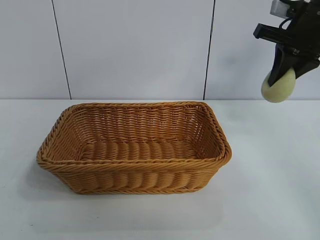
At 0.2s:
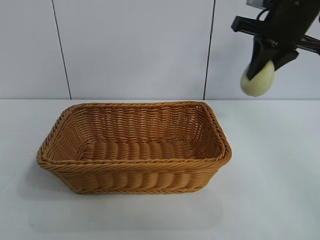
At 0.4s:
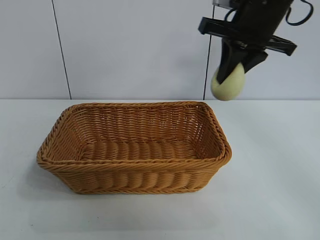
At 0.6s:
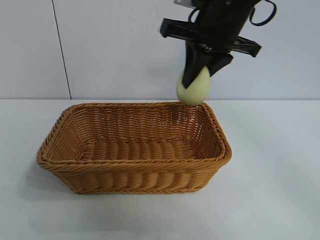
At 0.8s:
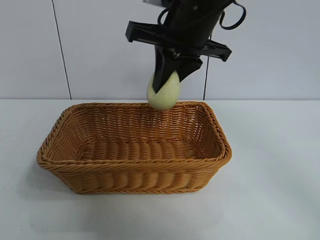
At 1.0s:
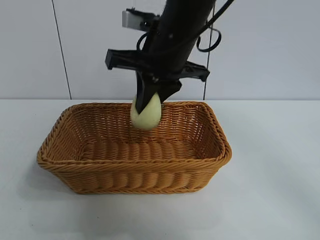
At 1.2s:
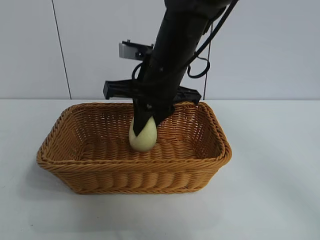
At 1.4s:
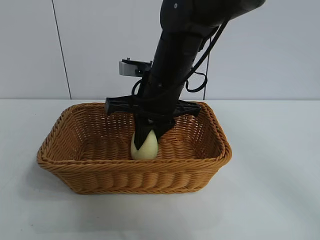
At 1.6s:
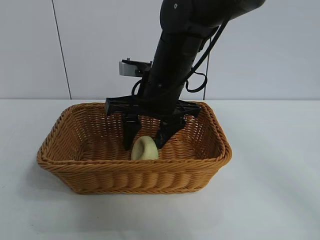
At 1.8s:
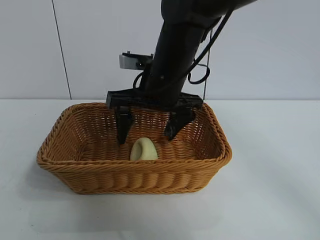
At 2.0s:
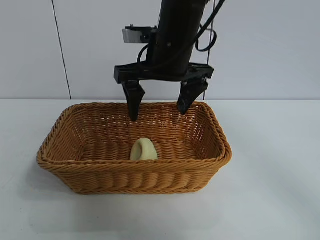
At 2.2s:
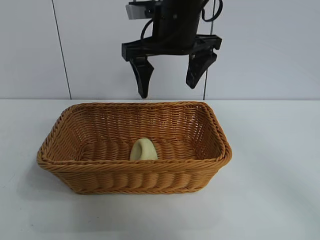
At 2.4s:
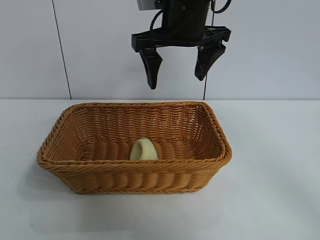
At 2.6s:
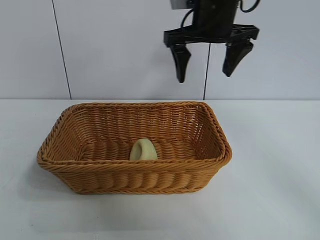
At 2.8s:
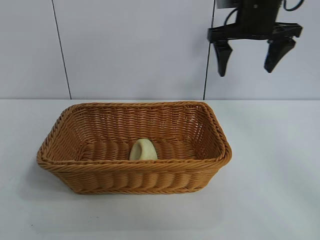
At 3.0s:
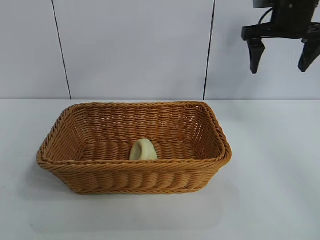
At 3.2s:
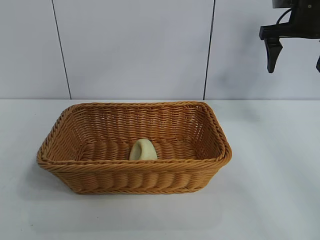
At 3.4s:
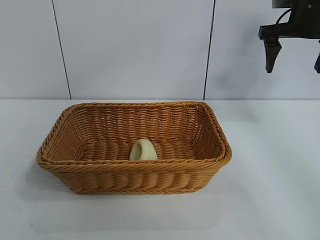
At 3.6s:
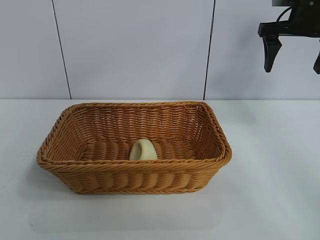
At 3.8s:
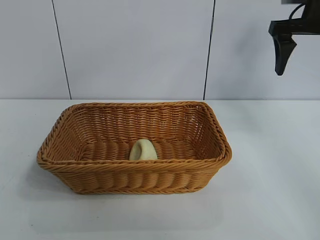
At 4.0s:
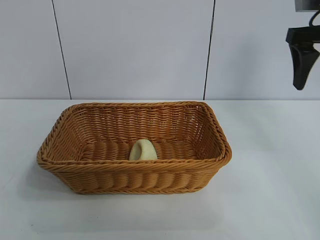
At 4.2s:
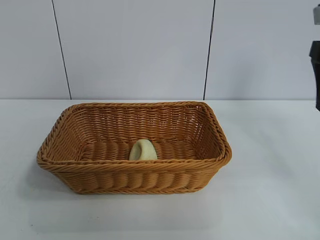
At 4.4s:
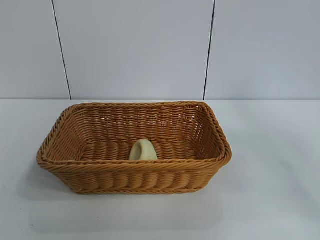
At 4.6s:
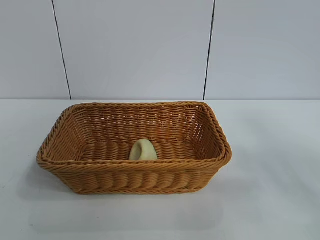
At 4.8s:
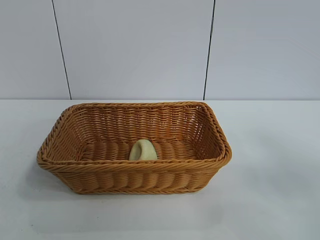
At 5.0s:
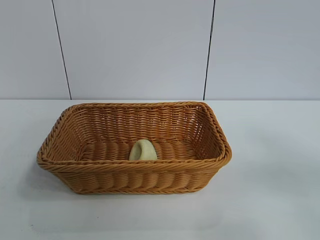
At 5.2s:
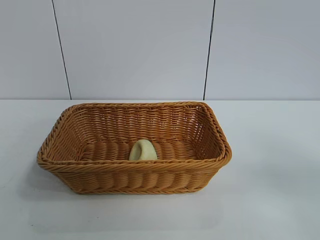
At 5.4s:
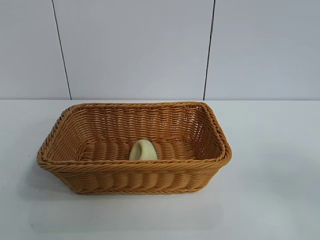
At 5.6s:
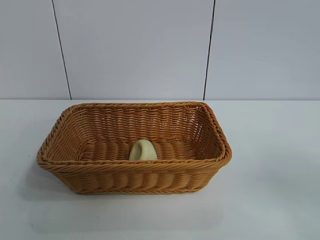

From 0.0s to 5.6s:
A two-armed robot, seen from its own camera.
Task of the whole recording: pick up the egg yolk pastry and put it into the basket.
Step, from 0.0s to 1.6s: Place the egg yolk pastry in the basket with right gripper.
